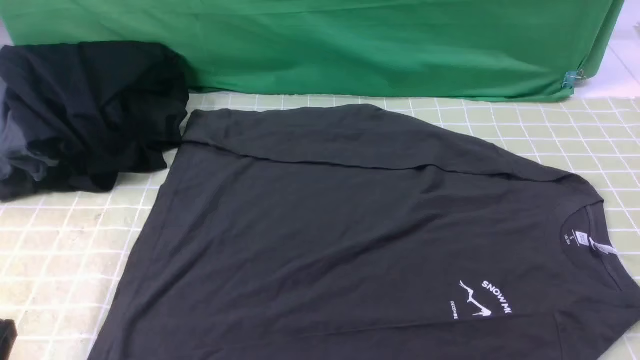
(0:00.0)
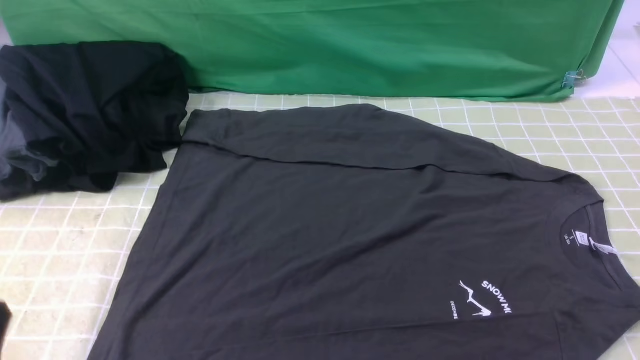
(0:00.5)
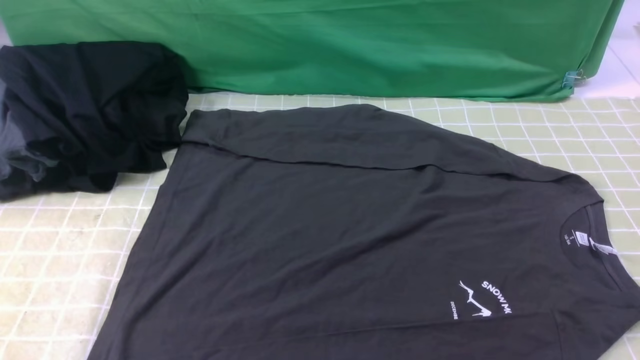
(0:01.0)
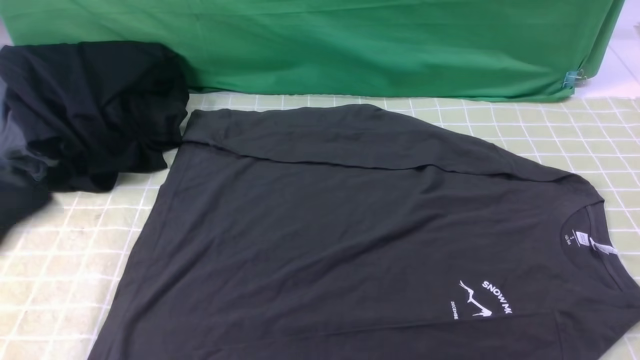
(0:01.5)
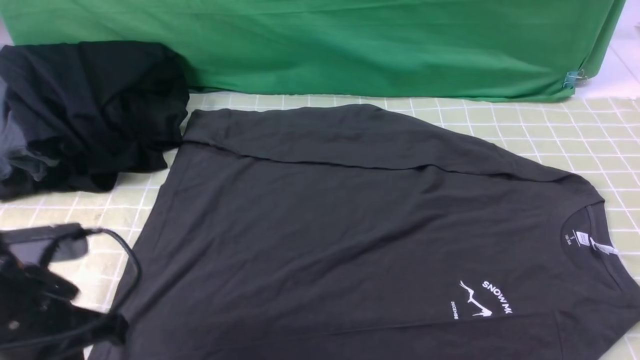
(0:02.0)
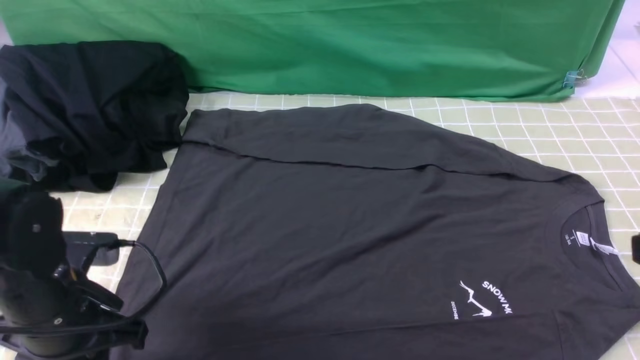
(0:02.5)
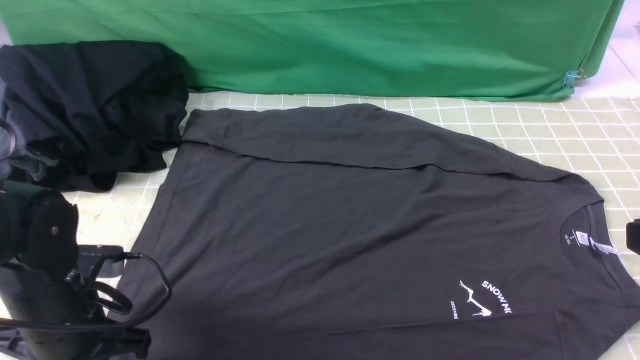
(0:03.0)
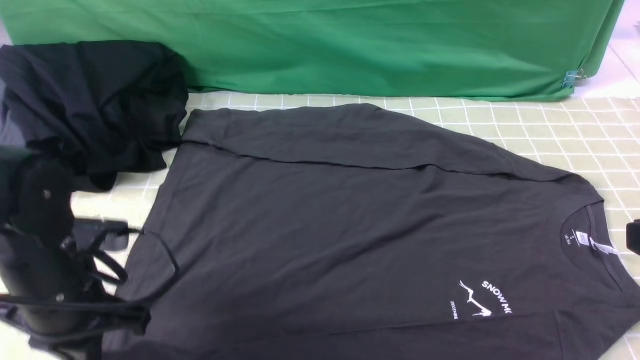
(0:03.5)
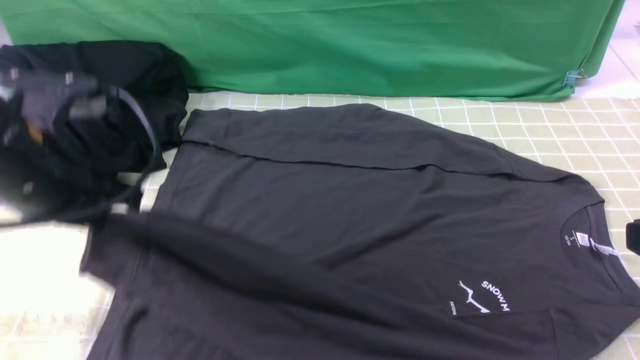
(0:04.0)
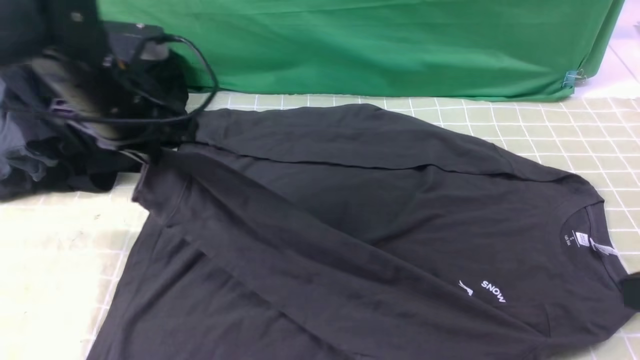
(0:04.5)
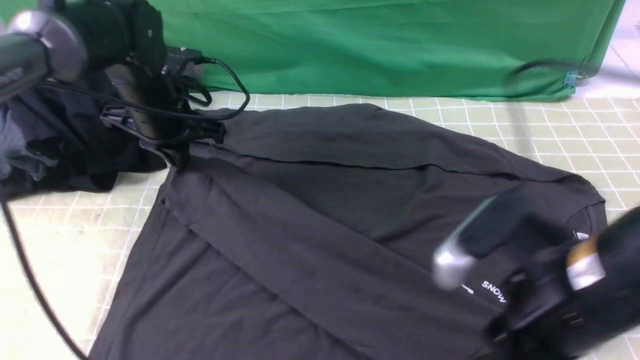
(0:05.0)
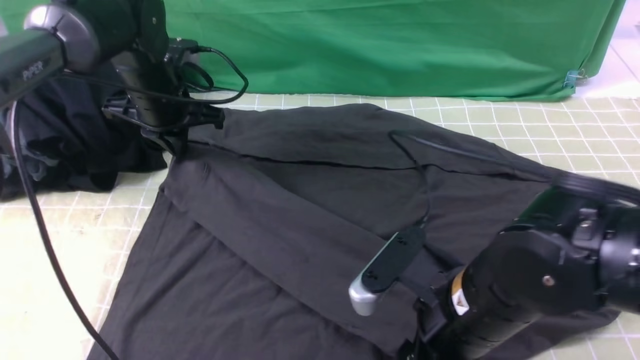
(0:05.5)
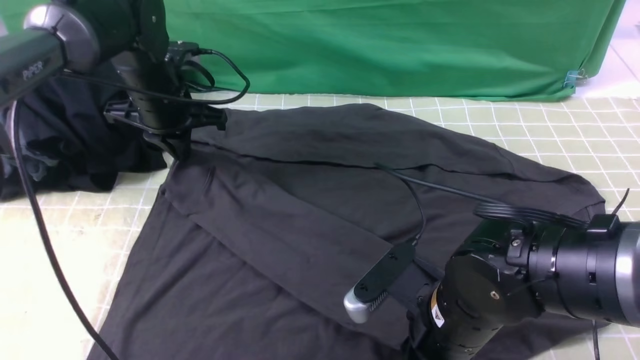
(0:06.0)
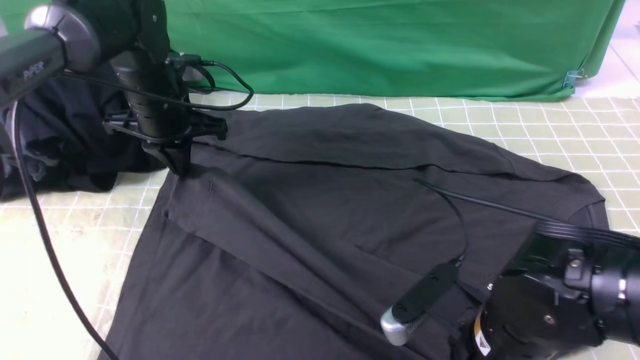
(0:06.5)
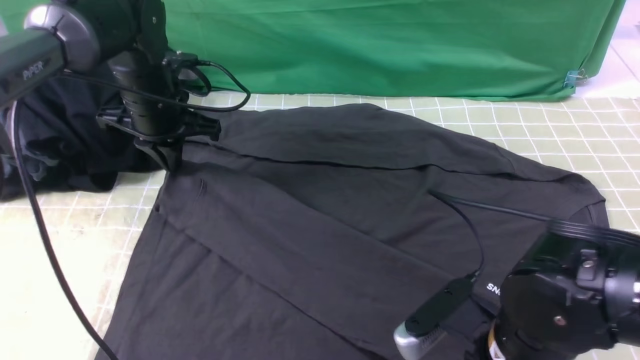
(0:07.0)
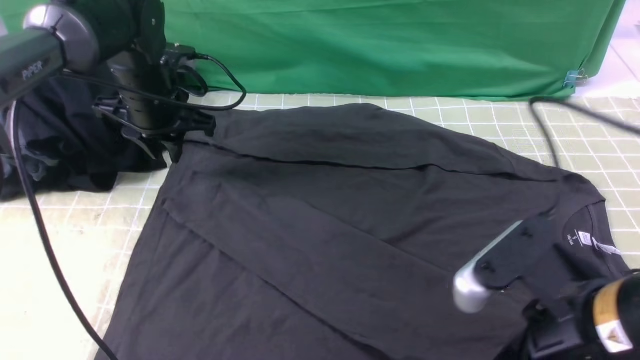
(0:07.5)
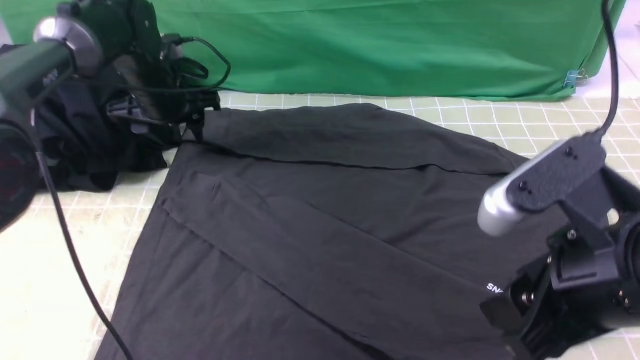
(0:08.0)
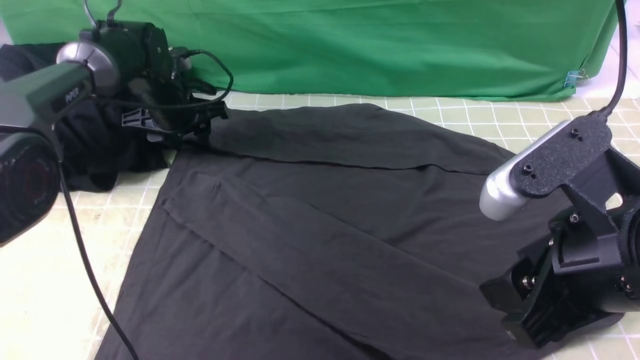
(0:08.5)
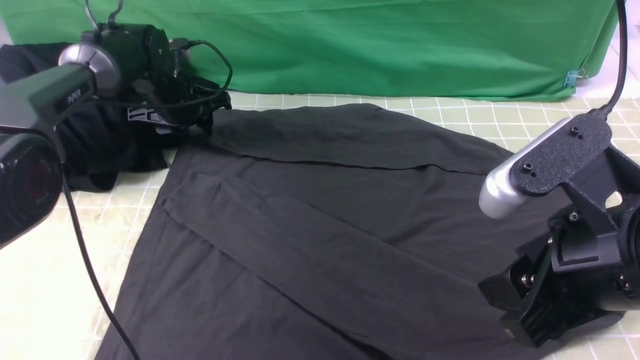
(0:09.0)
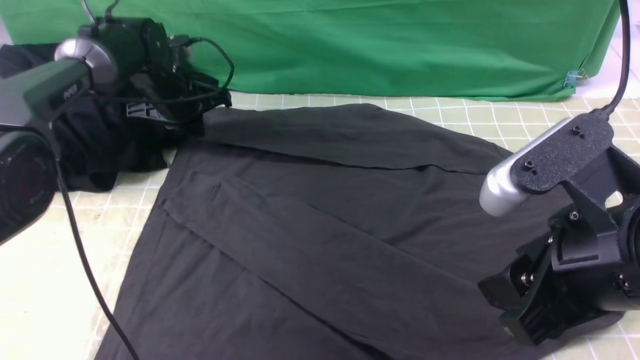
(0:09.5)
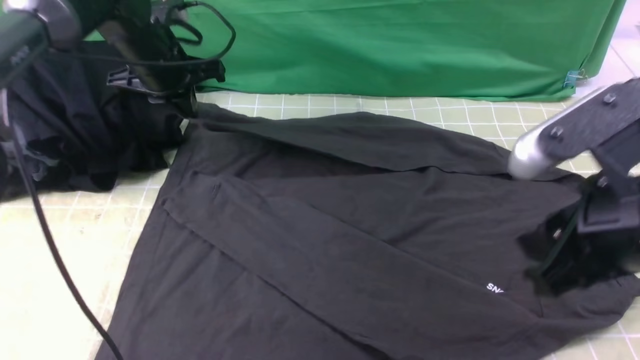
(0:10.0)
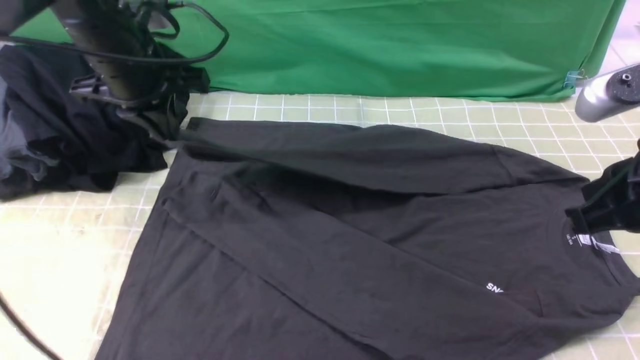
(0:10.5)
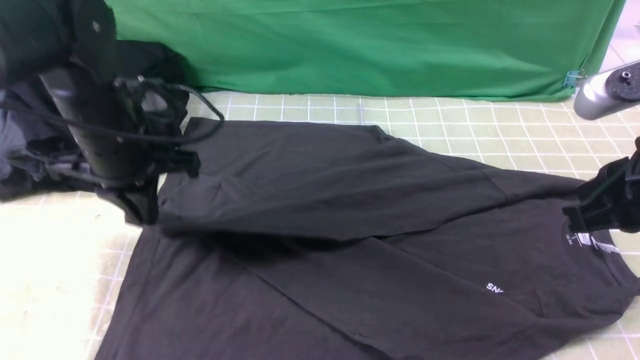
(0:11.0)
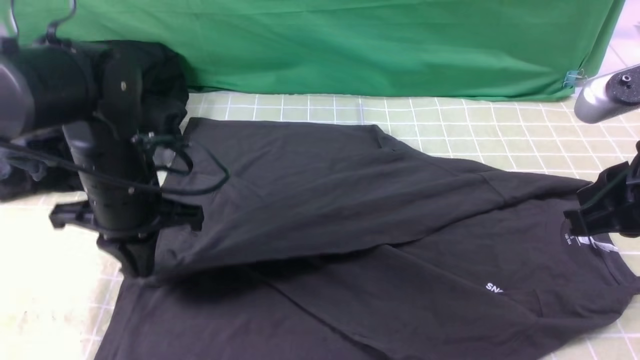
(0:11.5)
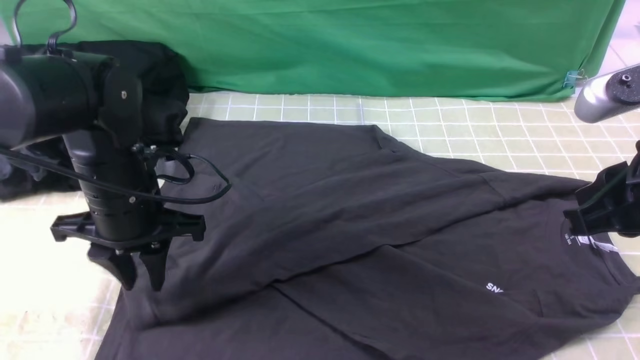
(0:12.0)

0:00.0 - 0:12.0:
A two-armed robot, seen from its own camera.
Step, 0:00.0 - 0:03.0: use the left arm to clamp the cuff closest to it.
Step, 0:03.5 - 0:07.5: use the left arm to drag and place the cuff at the centered position on the left edge of the fabric.
Step, 0:08.0 - 0:09.0: use the left arm to clamp the cuff farthest from it.
0:00.0 - 0:02.0: The left gripper moves forward, approximately 15 cm.
0:02.0 - 0:04.0: The right gripper moves forward, approximately 5 cm, while the left gripper moves upward and forward, some 10 cm, and opens, then closes again.
0:04.0 - 0:06.0: The left gripper travels forward by approximately 20 cm. The right gripper travels downward, to the left and forward by roughly 25 cm, and opens.
0:06.0 - 0:08.0: The left gripper moves approximately 5 cm, and opens its fingers. The right gripper moves upward and to the right, some 15 cm, and opens up.
0:08.0 - 0:10.0: The right gripper closes, while the left gripper travels upward by roughly 5 cm, and closes up.
0:10.0 - 0:12.0: The left gripper goes roughly 15 cm backward, and opens up.

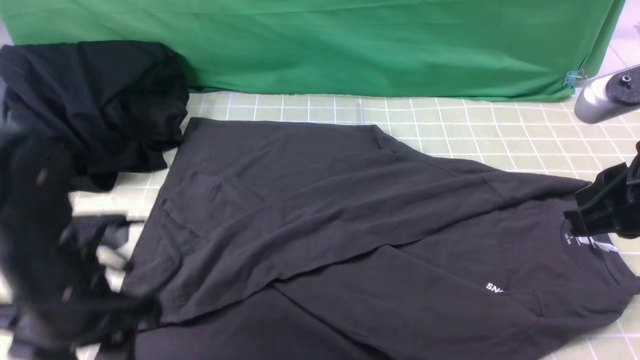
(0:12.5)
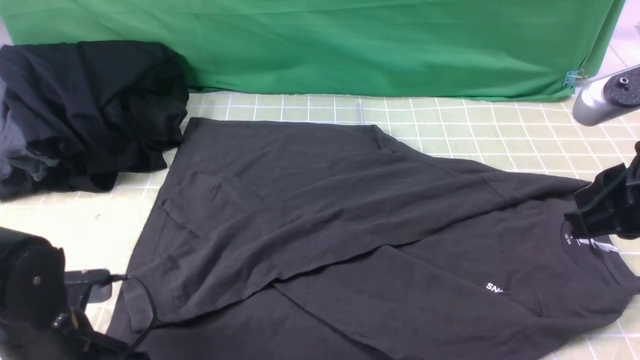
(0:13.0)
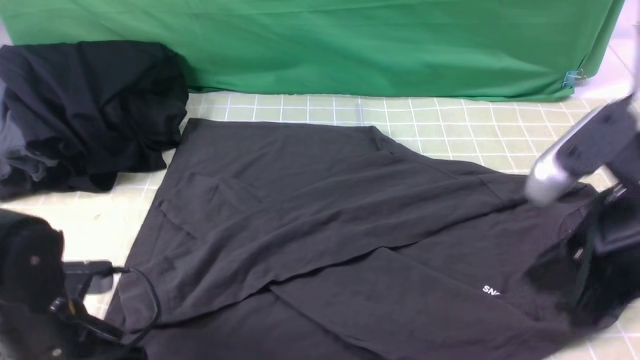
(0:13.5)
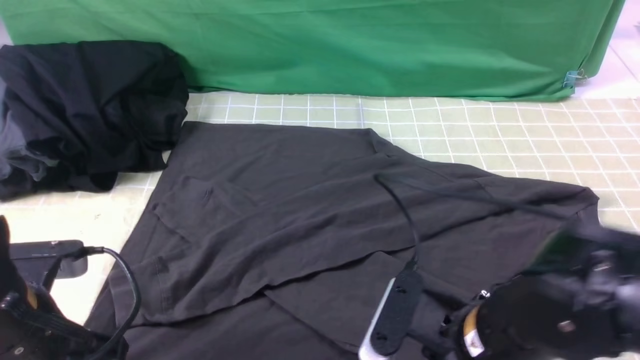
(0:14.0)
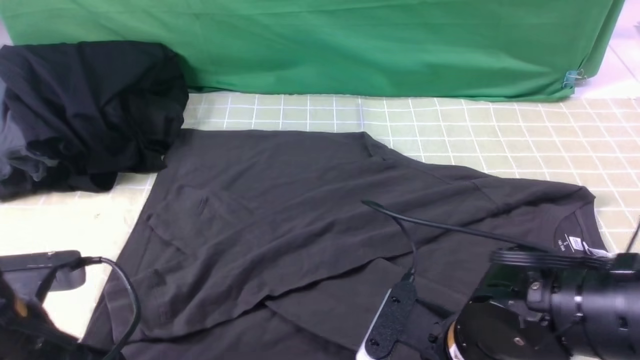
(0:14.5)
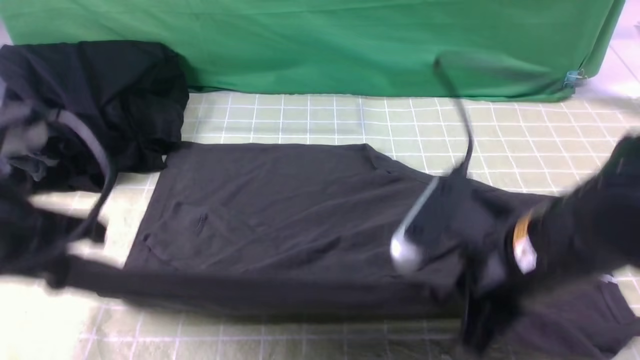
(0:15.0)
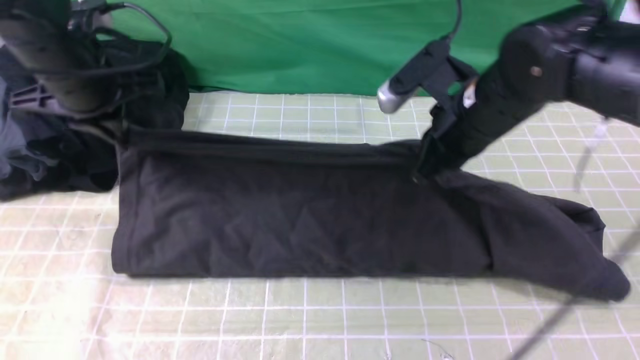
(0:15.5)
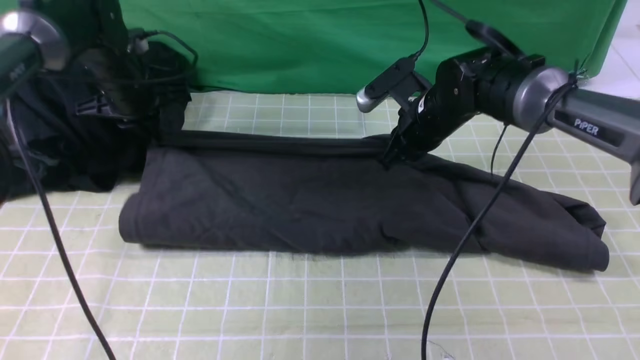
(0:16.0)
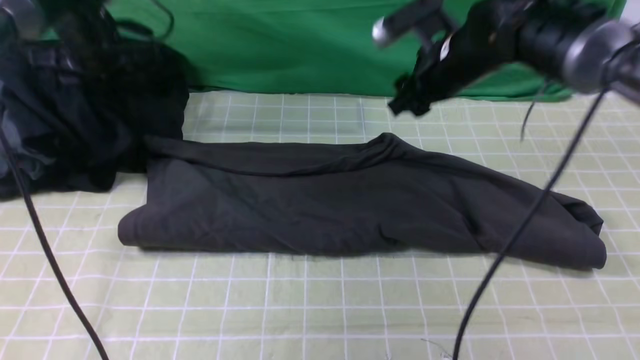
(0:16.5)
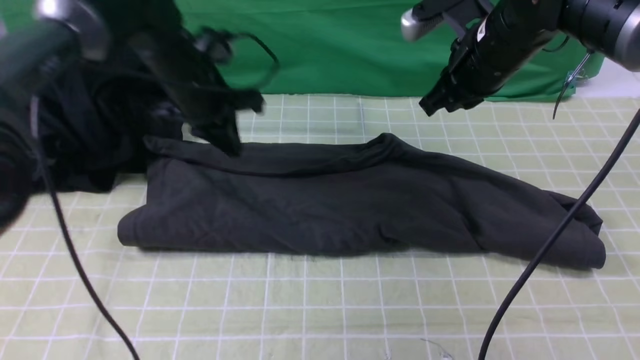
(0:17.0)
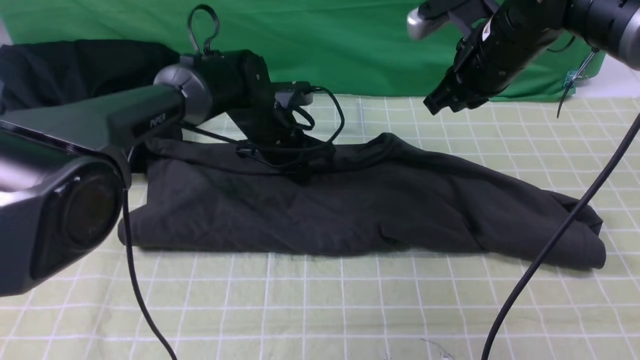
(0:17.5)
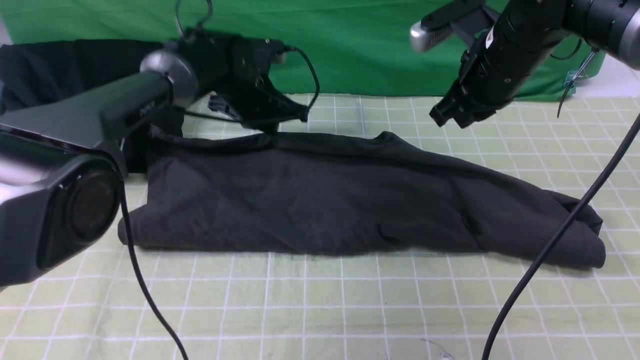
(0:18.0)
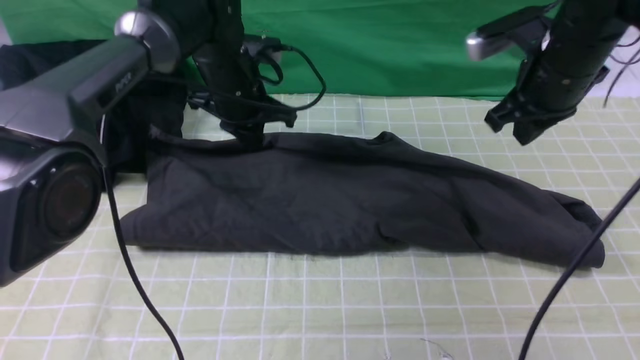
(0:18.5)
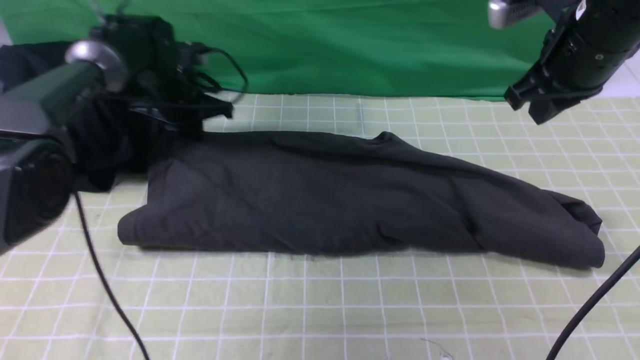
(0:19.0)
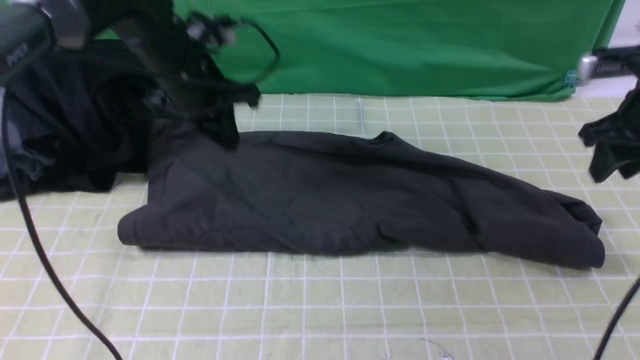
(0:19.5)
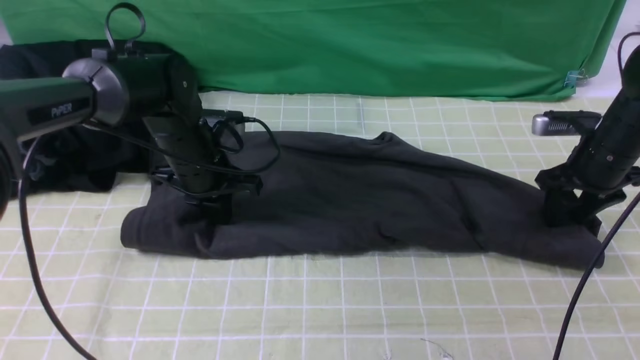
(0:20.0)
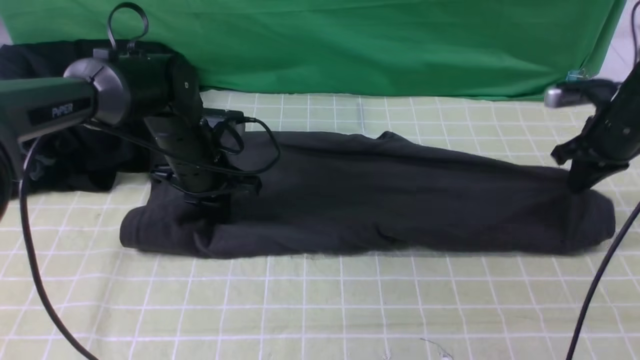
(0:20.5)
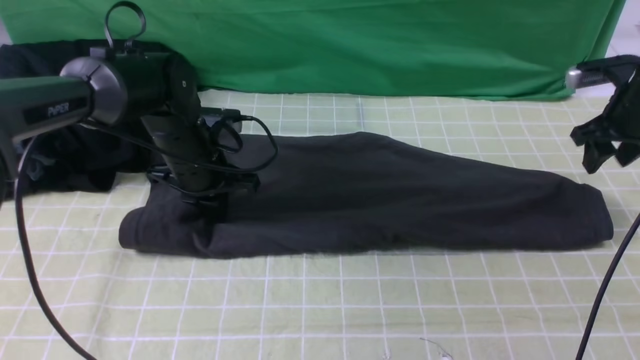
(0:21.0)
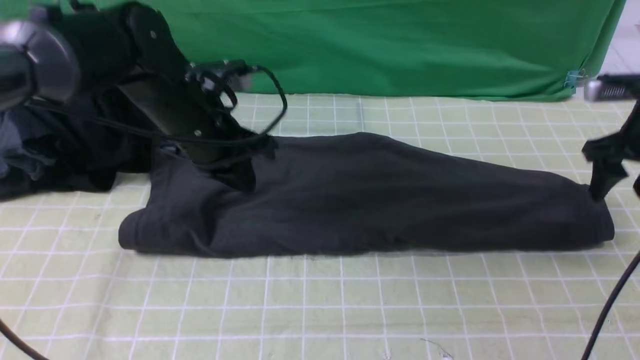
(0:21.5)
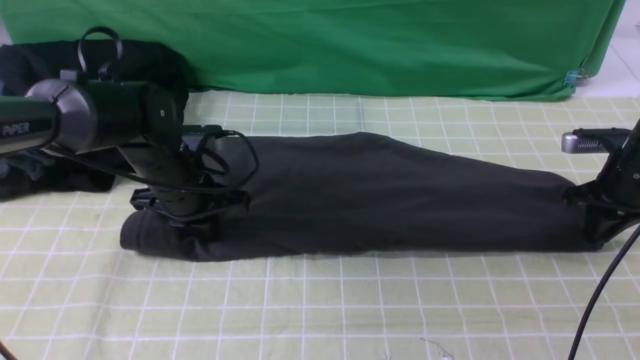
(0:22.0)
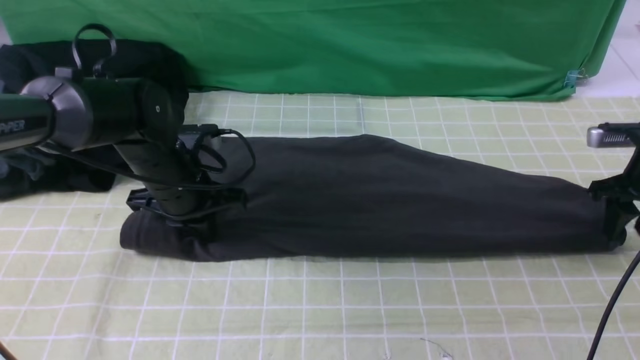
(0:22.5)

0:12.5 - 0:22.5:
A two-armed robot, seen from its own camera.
Step, 0:12.5 - 0:14.0: use both arms simultaneously to clamp the lower edge of the clothing fabric.
Step, 0:14.5 - 0:16.0: use both arms to drag the lower edge of the fabric forward and fold it over the upper edge.
0:12.5 - 0:14.5: The right gripper is displaced downward and to the left by about 20 cm, and opens, then closes once more. Meanwhile the left gripper goes some 5 cm backward, and closes its fingers.
0:14.5 - 0:16.5: The two grippers go about 30 cm forward. The left gripper opens its fingers.
0:16.5 - 0:18.5: The right gripper shifts about 10 cm to the right, and closes its fingers. The left gripper moves to the right and downward, some 15 cm, and closes up.
0:18.5 - 0:20.5: The left gripper travels backward by roughly 10 cm, while the right gripper moves to the right and downward, approximately 20 cm, and opens, then closes again.
0:20.5 - 0:22.5: The right gripper ends up some 5 cm from where it was, and opens.
